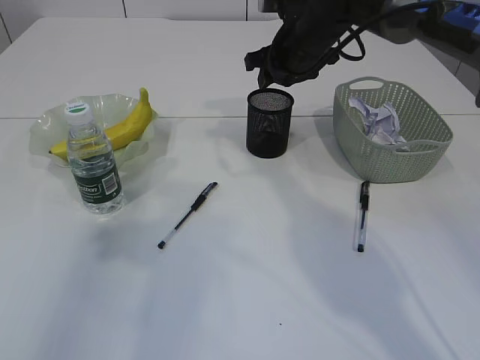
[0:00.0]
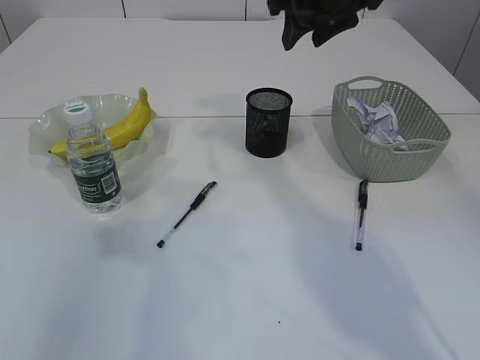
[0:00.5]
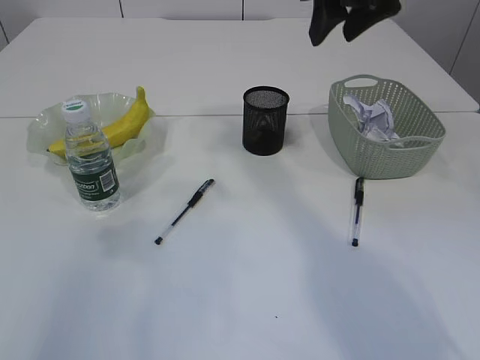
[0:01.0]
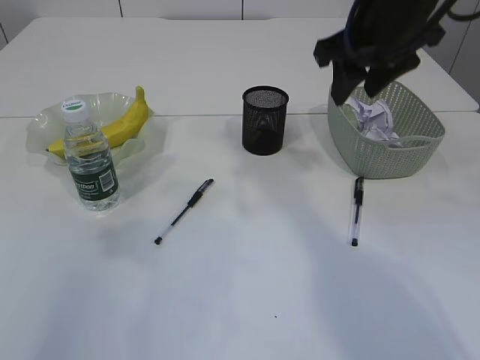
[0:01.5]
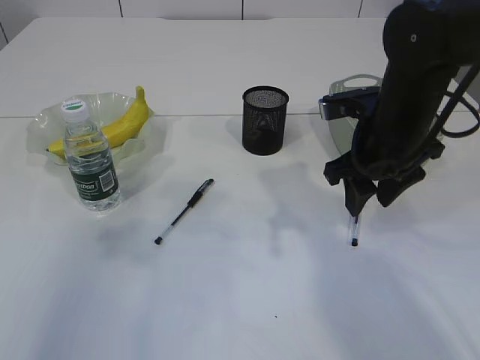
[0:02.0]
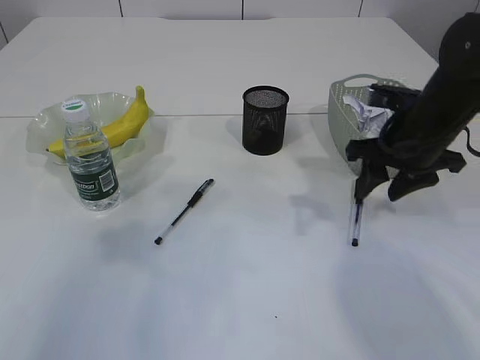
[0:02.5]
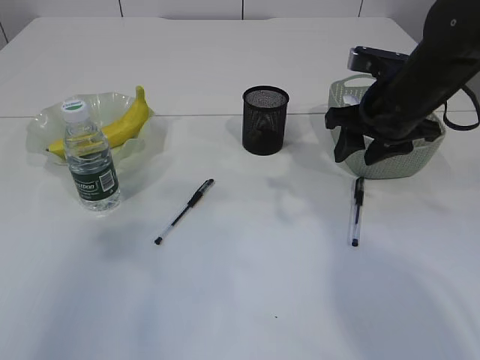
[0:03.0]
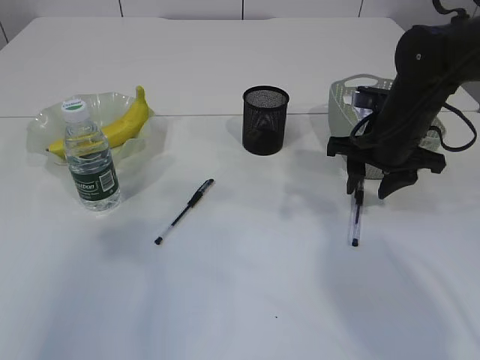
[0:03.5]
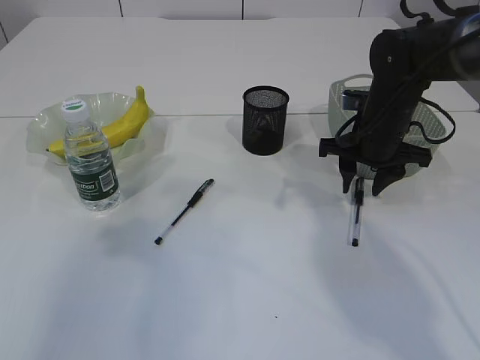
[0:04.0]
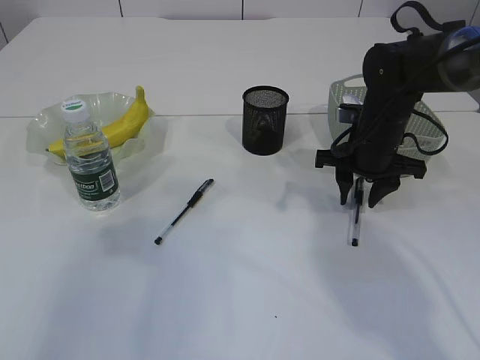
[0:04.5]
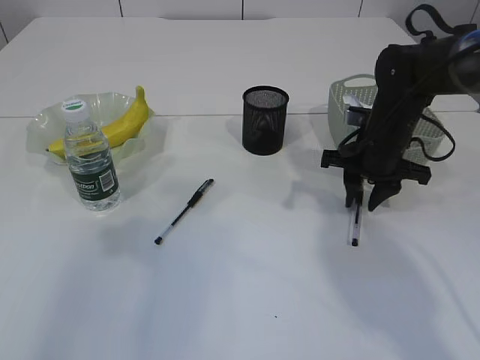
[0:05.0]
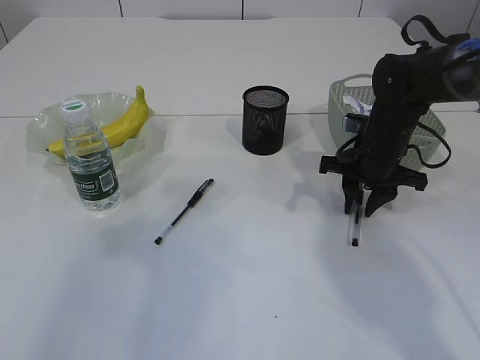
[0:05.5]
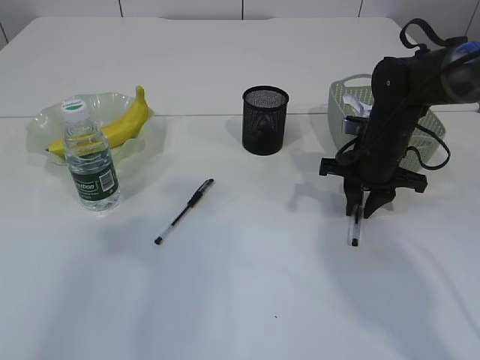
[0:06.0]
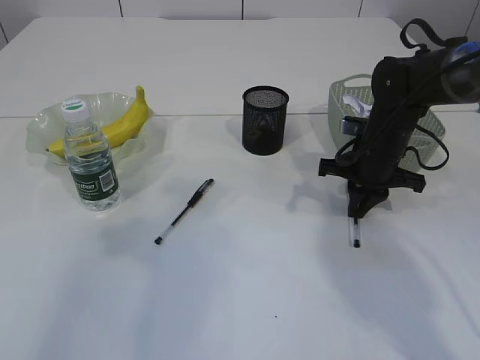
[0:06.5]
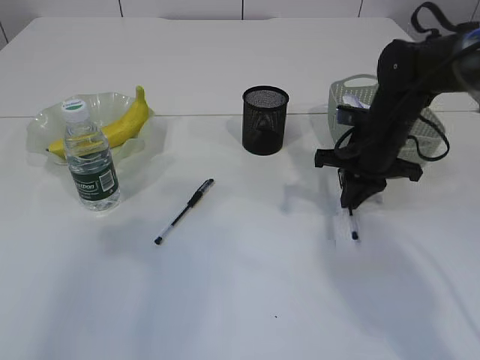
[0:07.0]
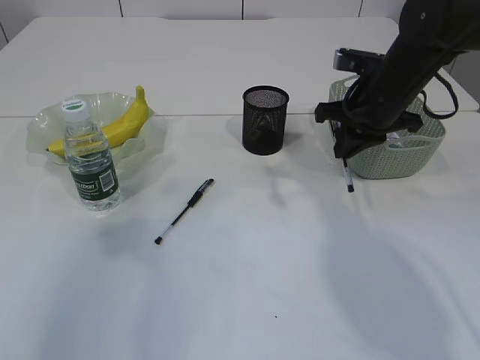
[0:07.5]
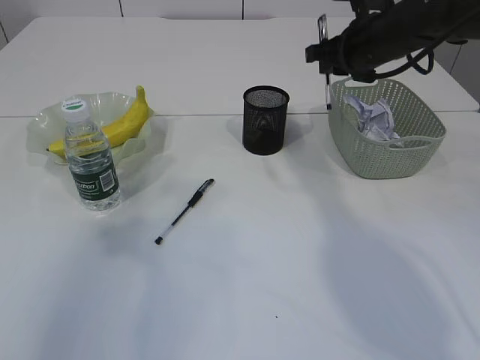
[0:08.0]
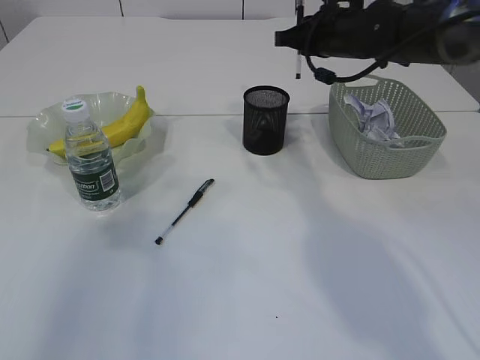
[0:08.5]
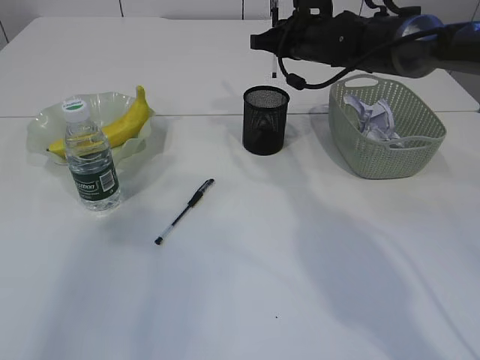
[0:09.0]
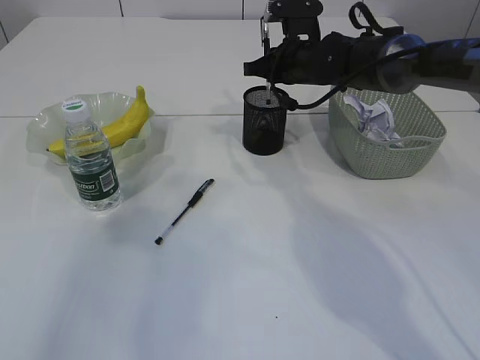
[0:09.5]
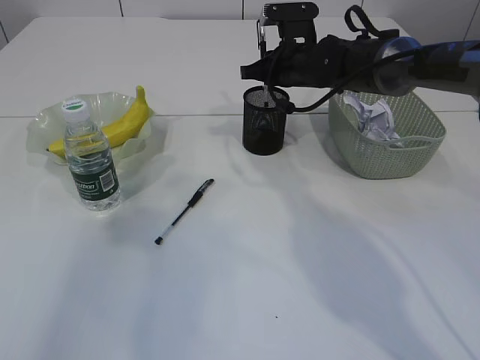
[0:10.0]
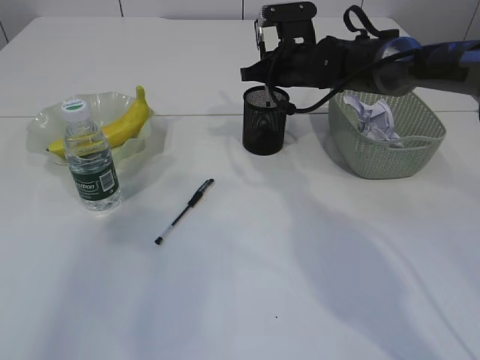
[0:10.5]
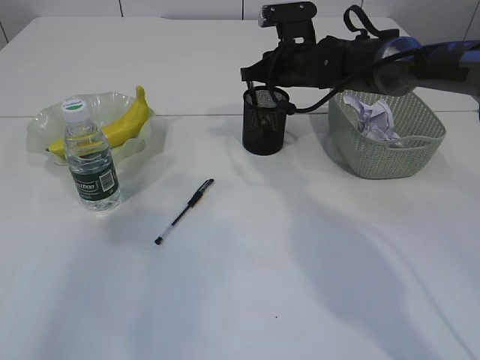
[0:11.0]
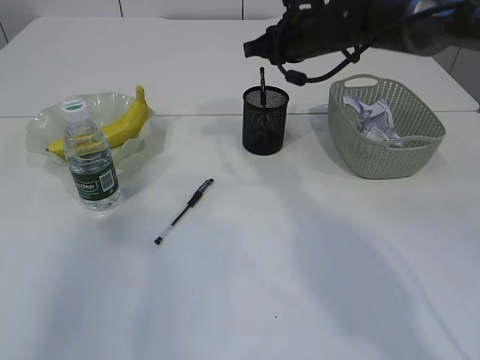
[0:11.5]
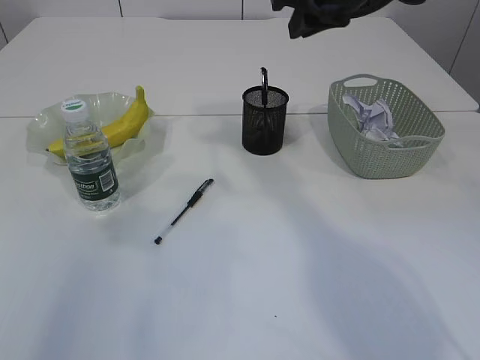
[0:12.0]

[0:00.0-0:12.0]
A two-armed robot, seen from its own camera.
Step, 0.5 to 7.5 s: Pick up the pen with right arm.
Step, 8.0 to 11.5 s: Place the pen into the pen holder.
0.0 to 2.0 s: The right gripper moves backward, about 15 cm, and goes upward and returns, roughly 15 cm each way.
2.0 to 4.0 s: The right gripper goes approximately 5 cm forward.
4.0 to 6.0 s: There are only small adjustments of the grippers.
6.0 to 8.0 s: The right gripper is displaced upward by some 15 cm.
8.0 to 10.0 s: The right gripper is displaced to the left, downward and forward by some 10 cm.
10.0 to 12.0 s: The right gripper goes some 15 cm upward and backward.

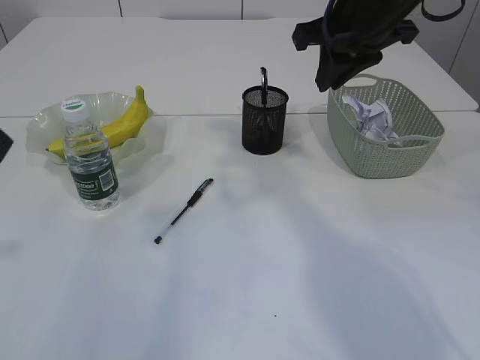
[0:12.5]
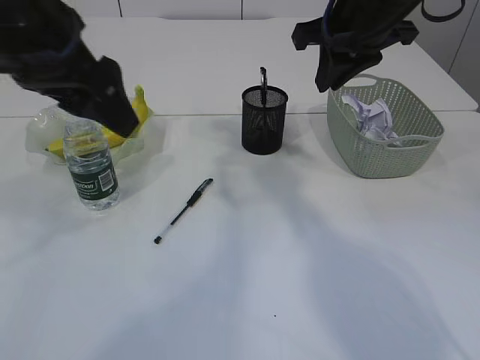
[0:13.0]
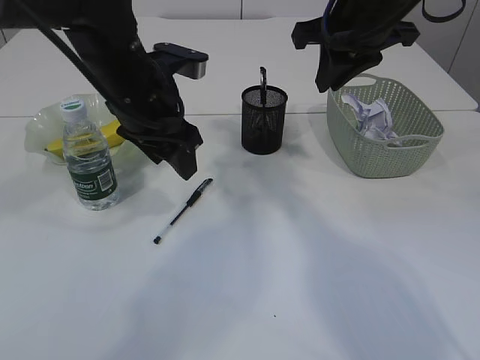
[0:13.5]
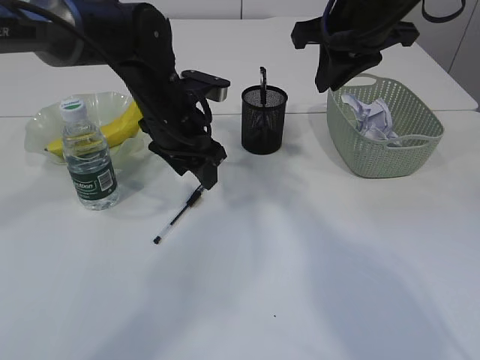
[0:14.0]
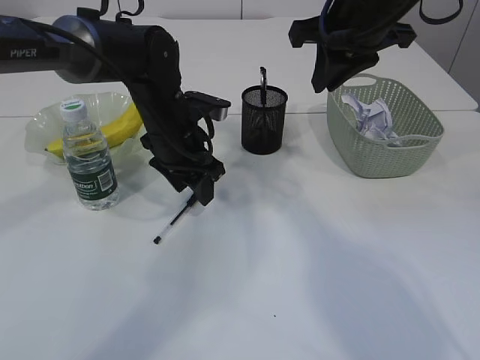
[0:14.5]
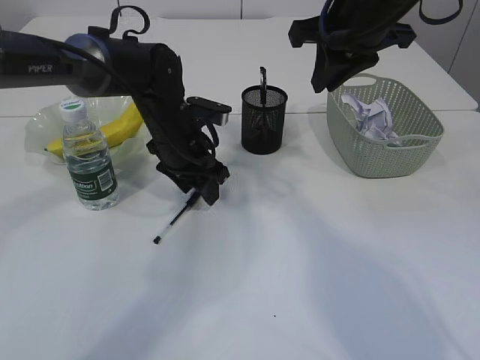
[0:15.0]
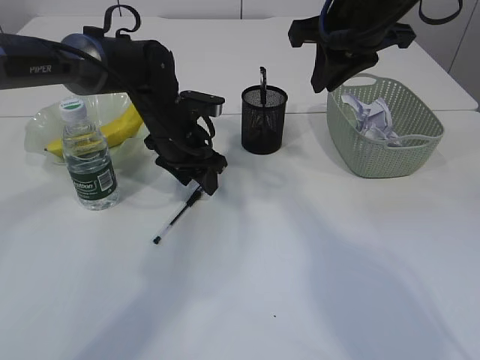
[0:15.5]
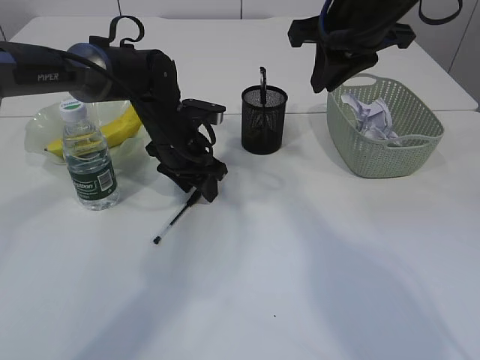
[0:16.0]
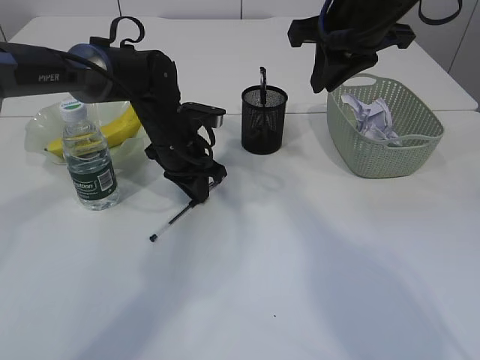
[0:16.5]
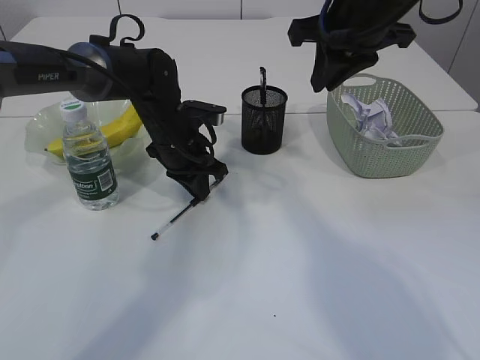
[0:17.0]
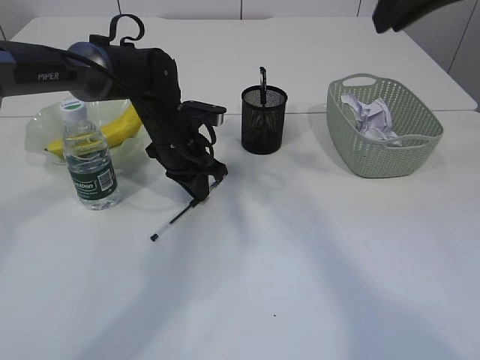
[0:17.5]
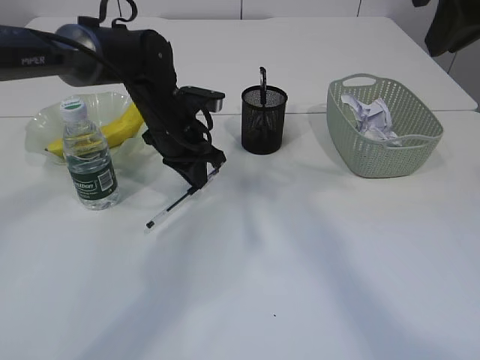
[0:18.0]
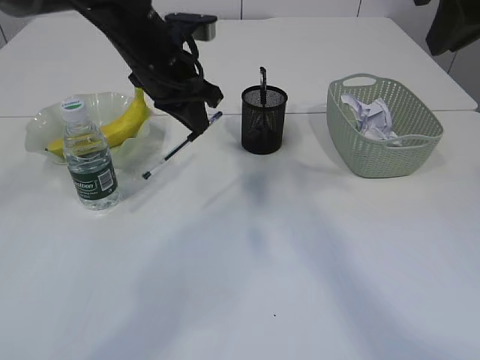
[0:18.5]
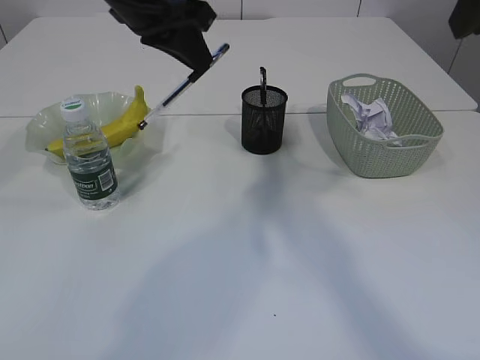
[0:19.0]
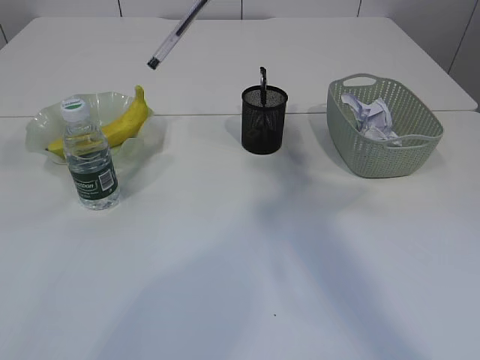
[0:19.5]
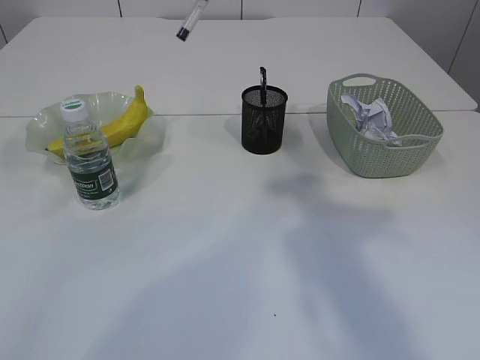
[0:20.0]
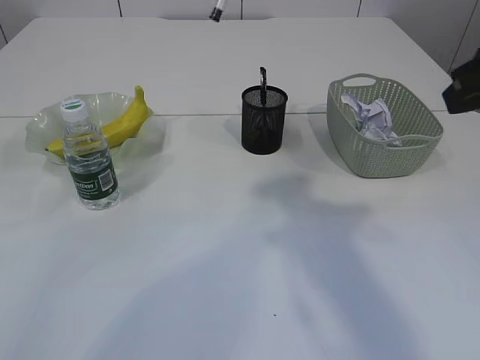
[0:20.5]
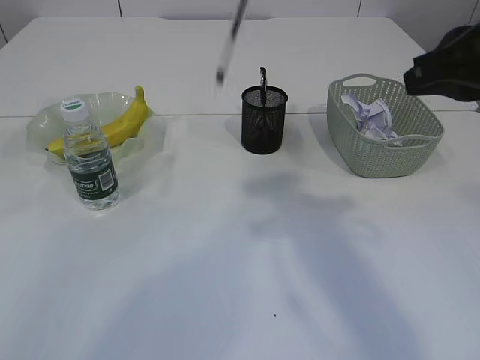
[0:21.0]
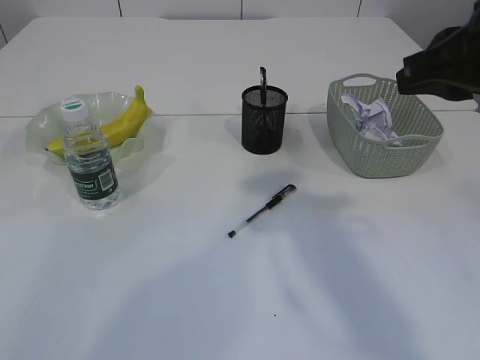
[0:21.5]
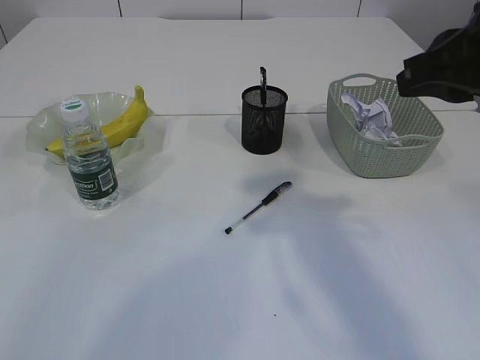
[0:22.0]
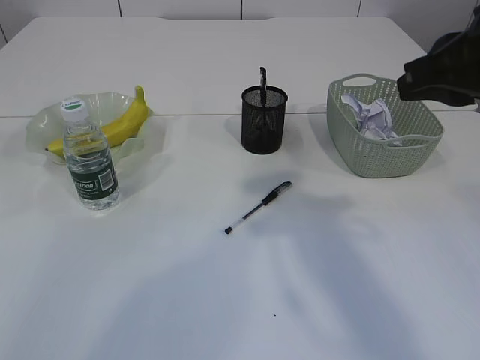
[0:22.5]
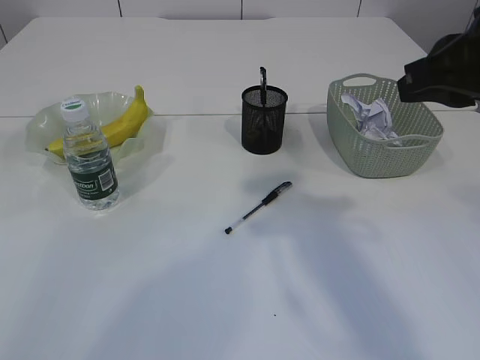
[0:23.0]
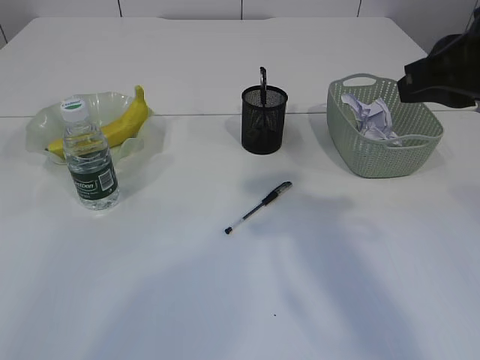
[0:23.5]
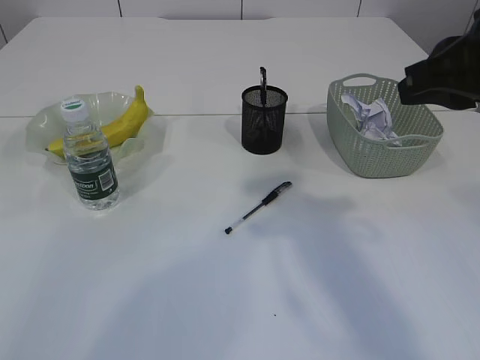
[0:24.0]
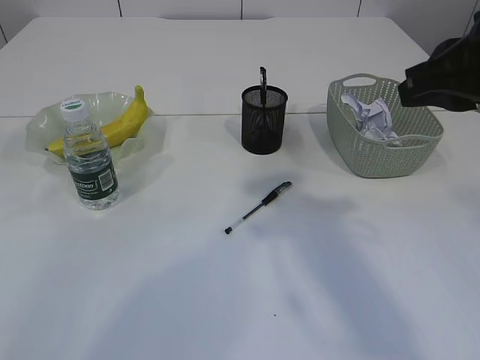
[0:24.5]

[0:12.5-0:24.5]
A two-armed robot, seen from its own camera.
12.5 to 14.5 s: The left gripper is displaced forward, downward and to the right by roughly 35 cm.
14.5 to 16.5 s: The left gripper closes its fingers.
16.5 to 18.5 s: The right gripper travels backward, upward and to the right by about 15 cm. The left gripper heads upward, covering roughly 15 cm.
18.5 to 20.5 s: The right gripper heads backward, covering about 5 cm, while the left gripper heads upward and backward, covering roughly 25 cm.
20.5 to 22.5 s: The grippers make only small movements.

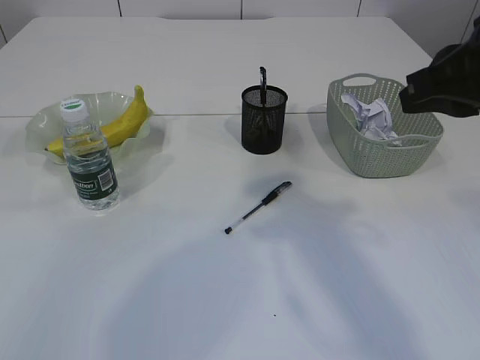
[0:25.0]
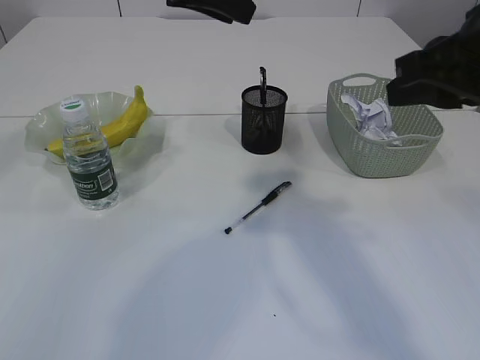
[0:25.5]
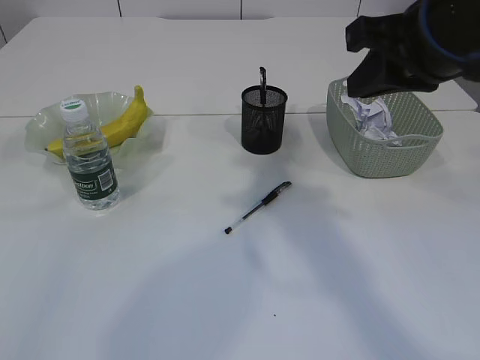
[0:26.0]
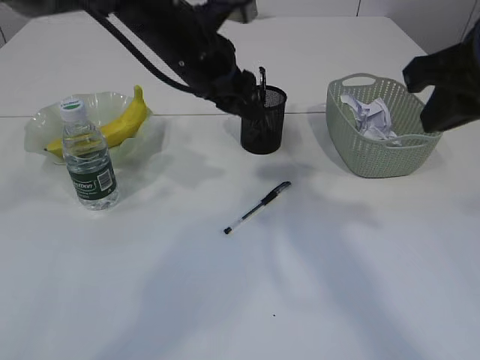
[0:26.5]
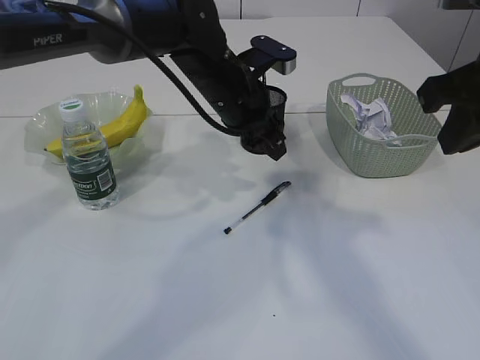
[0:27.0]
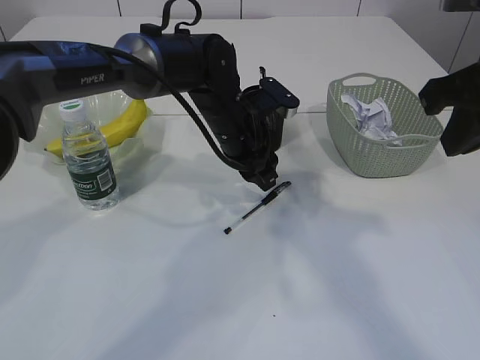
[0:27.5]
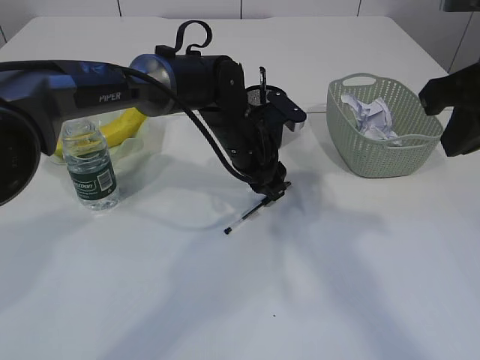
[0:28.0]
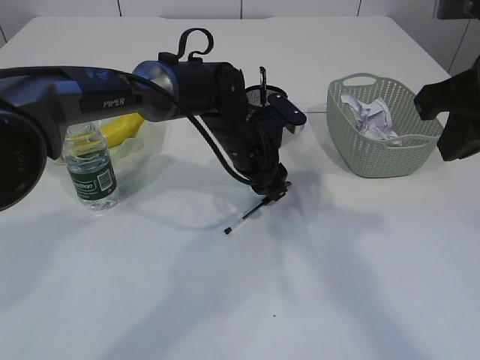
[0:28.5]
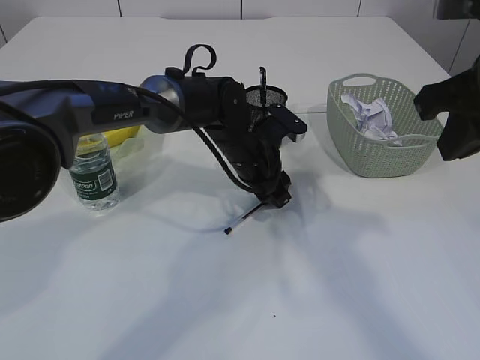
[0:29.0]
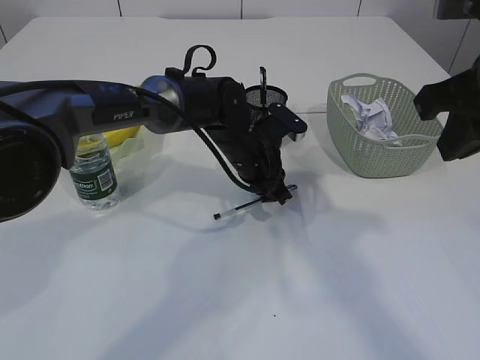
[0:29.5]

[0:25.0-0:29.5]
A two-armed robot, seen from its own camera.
25.0 to 27.0 s: The left gripper moves up and down over roughly 20 cm, changing direction 2 times.
27.0 to 29.5 s: The left gripper is displaced downward by approximately 10 cm, and closes up.
